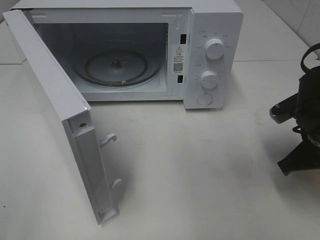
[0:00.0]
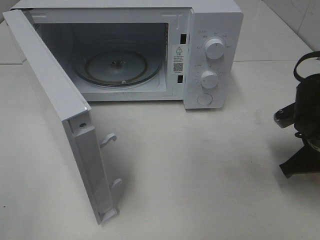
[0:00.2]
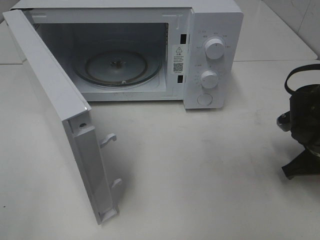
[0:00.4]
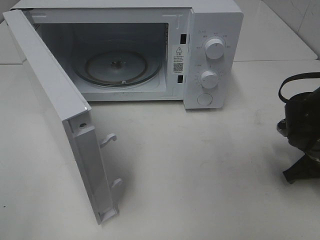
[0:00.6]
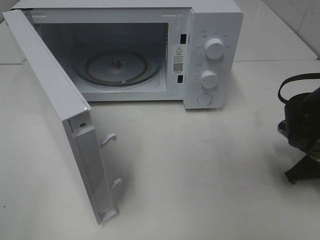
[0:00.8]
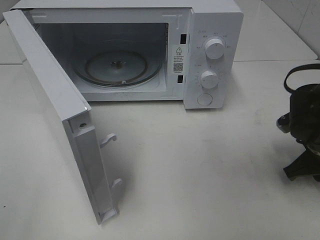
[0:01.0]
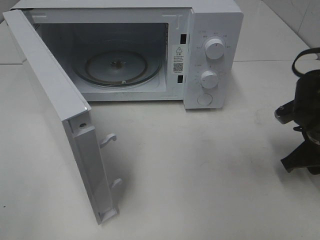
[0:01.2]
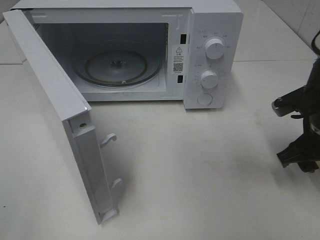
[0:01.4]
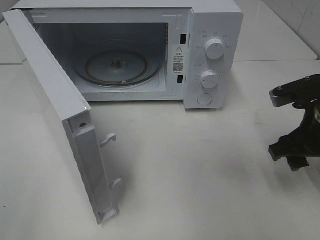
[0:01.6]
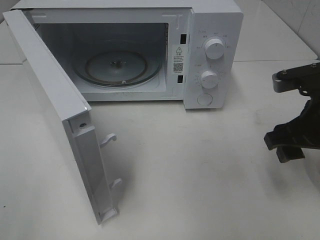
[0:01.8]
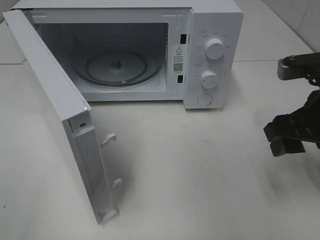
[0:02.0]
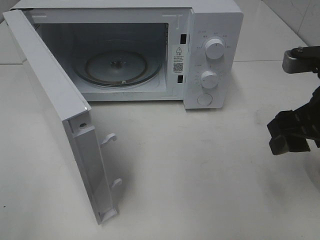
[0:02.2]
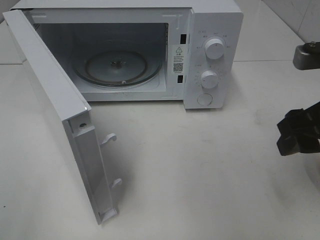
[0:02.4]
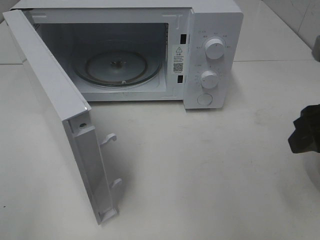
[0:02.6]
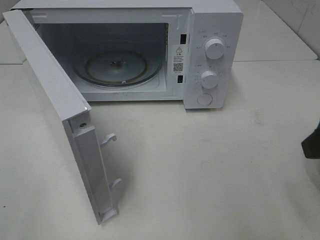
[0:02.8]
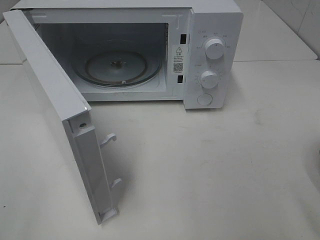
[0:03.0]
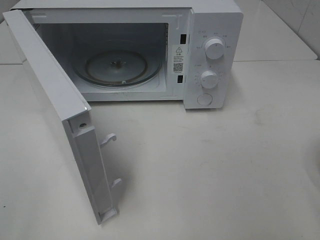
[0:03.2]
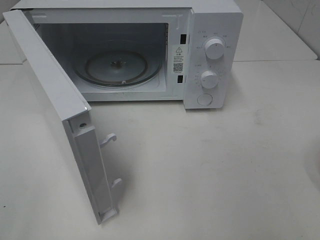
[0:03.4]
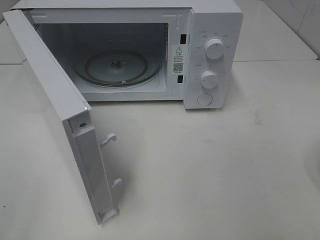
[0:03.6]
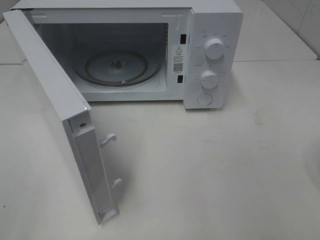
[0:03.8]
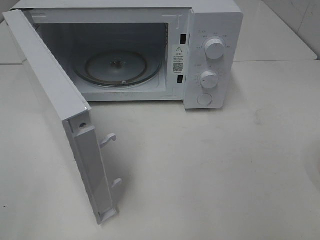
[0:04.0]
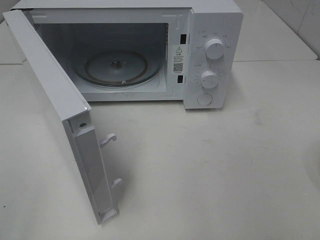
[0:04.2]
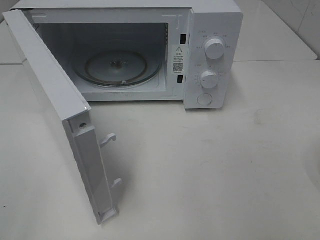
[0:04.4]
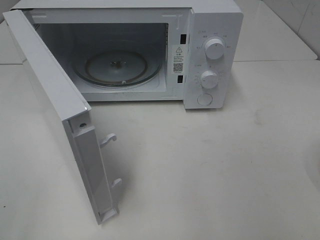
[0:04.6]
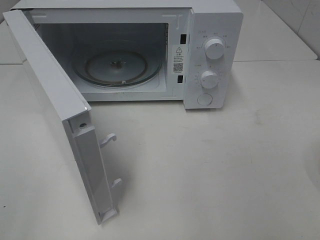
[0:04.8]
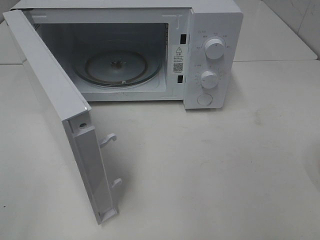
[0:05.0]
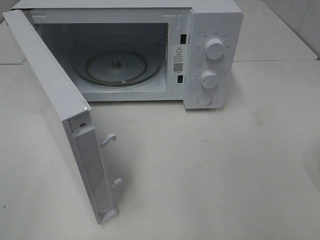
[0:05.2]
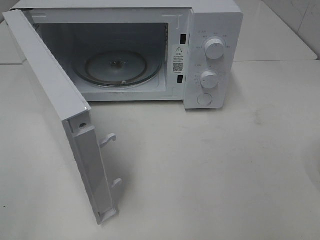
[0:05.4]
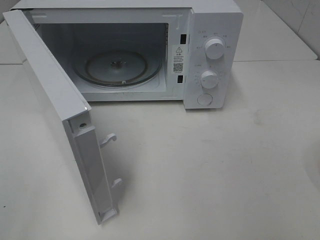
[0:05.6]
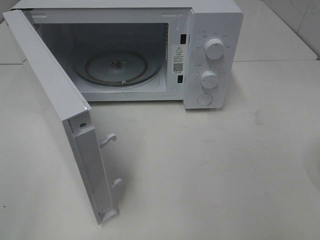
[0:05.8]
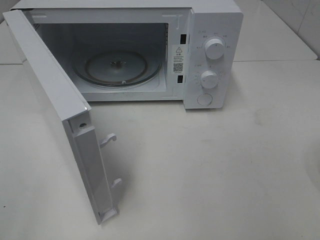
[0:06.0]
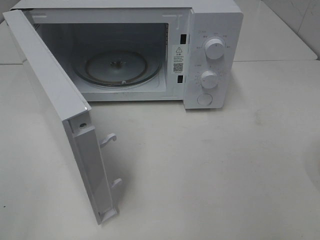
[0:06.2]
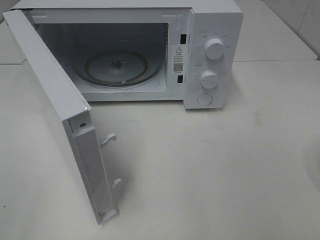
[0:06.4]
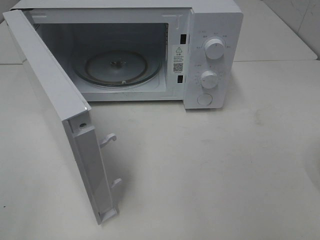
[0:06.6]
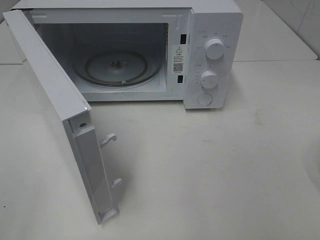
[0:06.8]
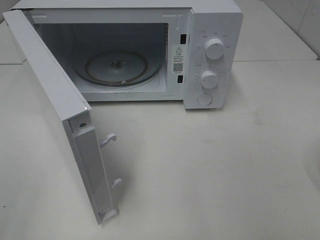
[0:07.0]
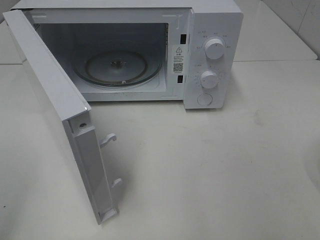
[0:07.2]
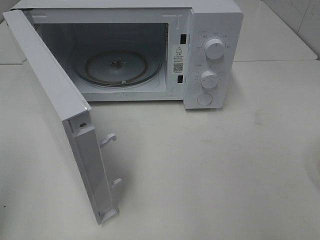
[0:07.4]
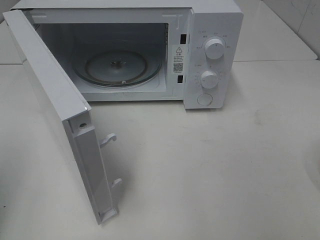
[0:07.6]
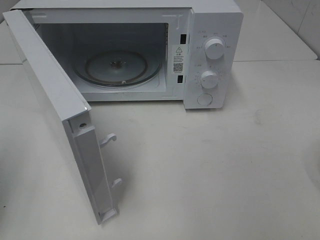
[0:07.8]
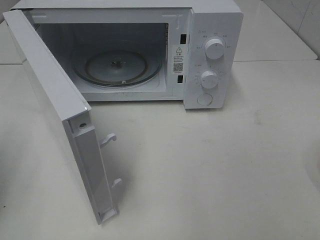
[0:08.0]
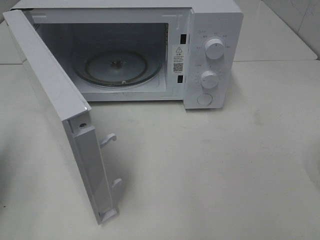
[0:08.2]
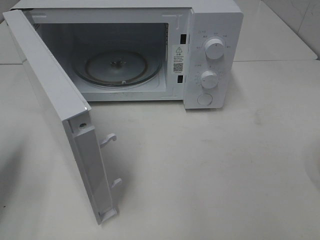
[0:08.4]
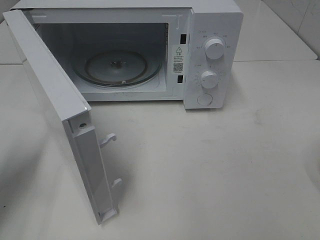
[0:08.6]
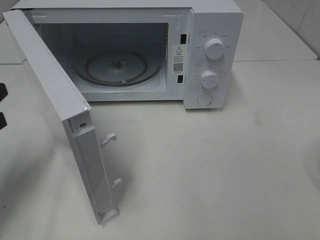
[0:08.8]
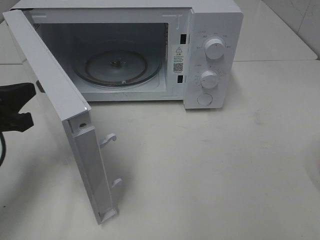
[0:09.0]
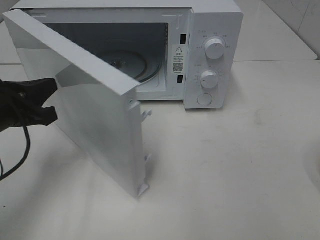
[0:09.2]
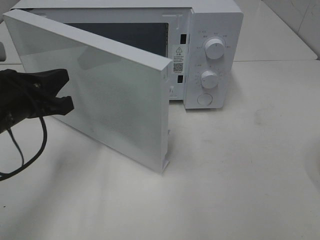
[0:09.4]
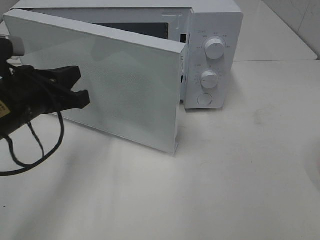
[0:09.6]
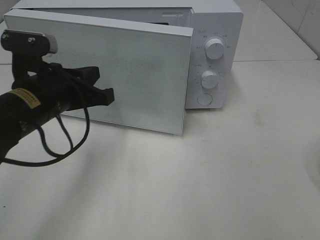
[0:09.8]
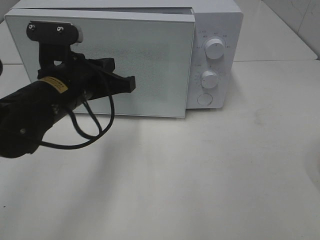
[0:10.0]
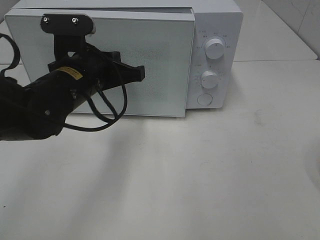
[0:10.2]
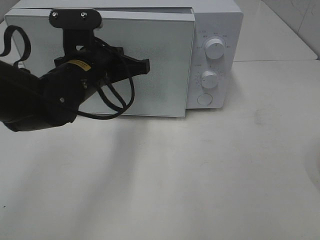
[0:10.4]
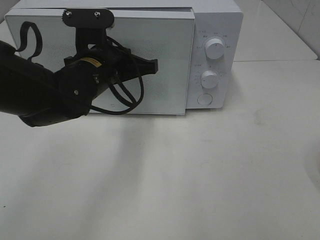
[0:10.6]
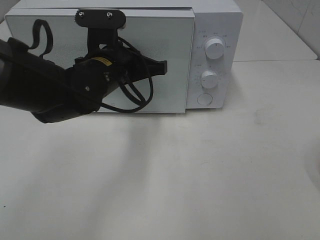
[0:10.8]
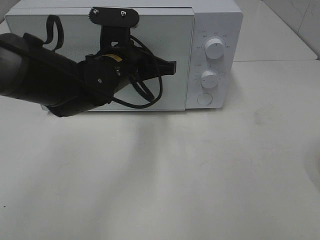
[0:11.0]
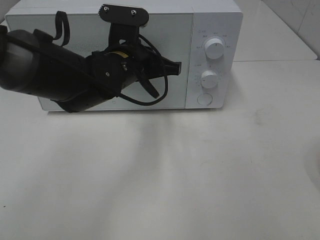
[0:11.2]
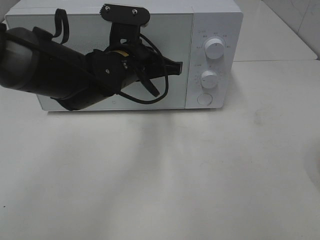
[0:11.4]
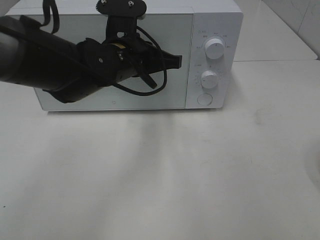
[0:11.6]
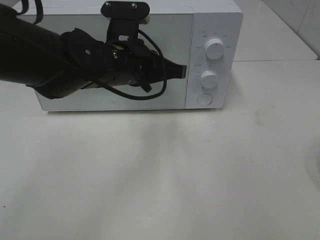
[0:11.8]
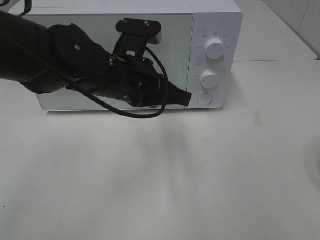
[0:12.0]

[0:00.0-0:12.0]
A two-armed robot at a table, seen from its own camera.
Task of the whole recording: Heat the burger.
0:00.0 to 0:01.6: The right gripper opens its fingers.
0:01.6 to 0:03.0: The right gripper heads backward and upward, covering about 15 cm.
0:07.6 to 0:09.0: The left gripper moves forward, downward and to the right, some 20 cm.
0:09.0 to 0:10.4: The left gripper shifts approximately 20 cm to the right and forward.
0:10.4 to 0:12.0: The left gripper changes place by some 5 cm.

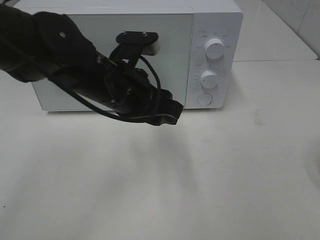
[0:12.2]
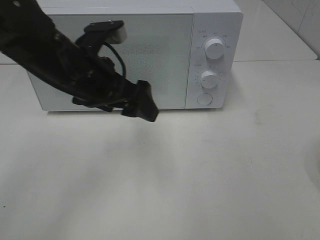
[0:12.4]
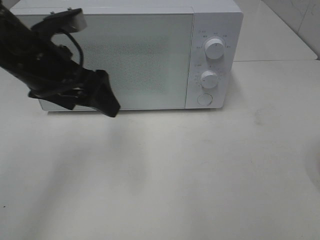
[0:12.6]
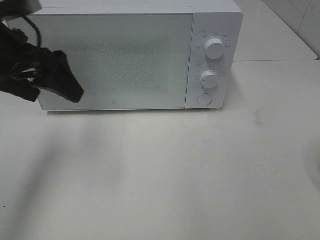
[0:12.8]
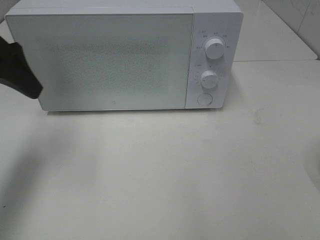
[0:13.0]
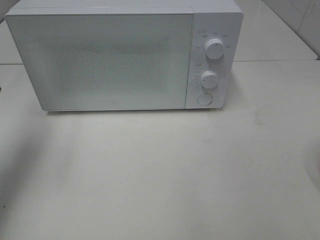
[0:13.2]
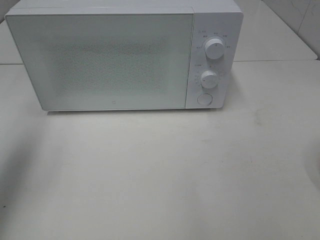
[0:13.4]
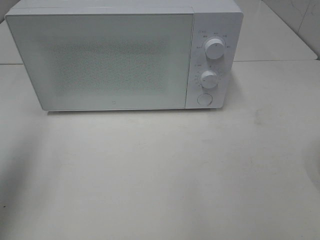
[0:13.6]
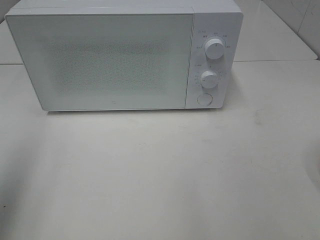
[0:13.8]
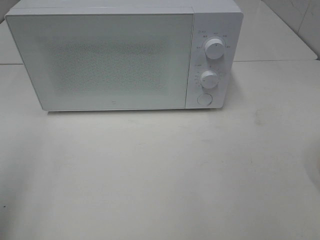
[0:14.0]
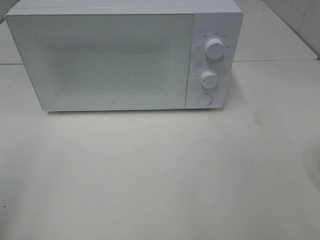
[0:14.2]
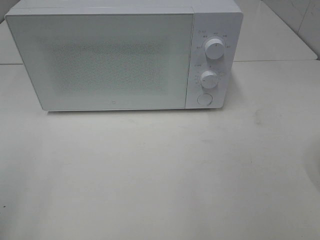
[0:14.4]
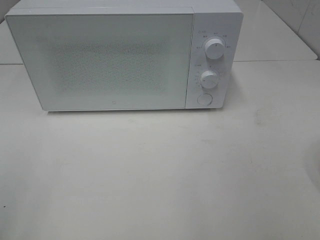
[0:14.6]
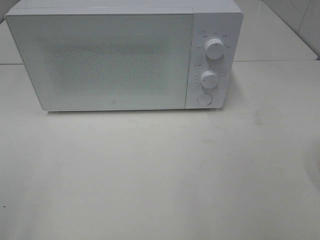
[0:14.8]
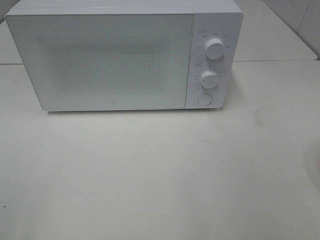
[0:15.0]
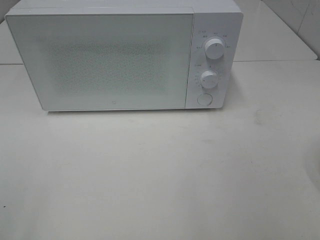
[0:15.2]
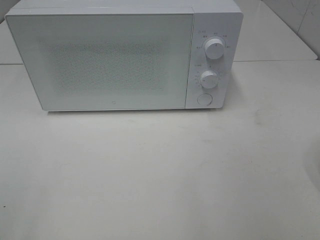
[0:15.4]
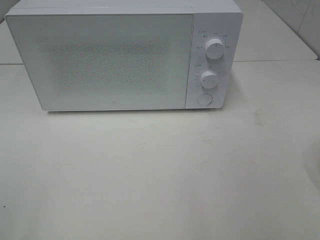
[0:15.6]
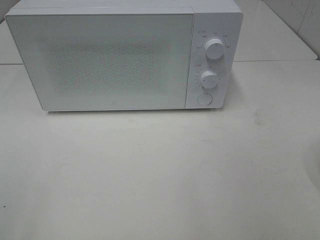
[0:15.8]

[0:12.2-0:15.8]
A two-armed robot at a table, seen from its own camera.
Task of the whole recording: Heat the burger.
0:12.2 to 0:14.0: The left gripper shifts roughly 35 cm to the left, backward and upward, and opens up.

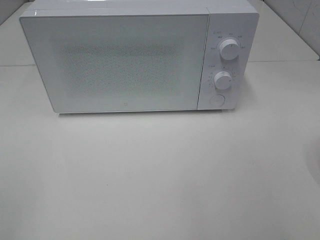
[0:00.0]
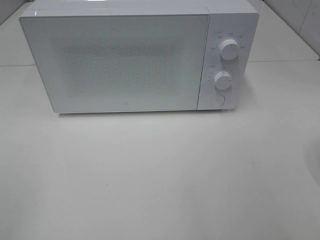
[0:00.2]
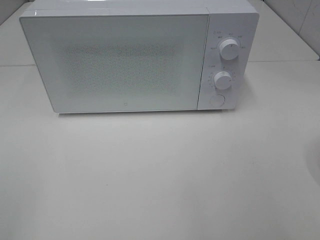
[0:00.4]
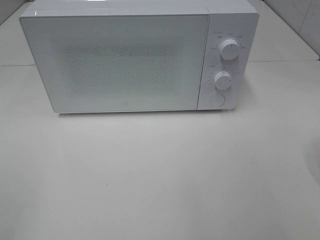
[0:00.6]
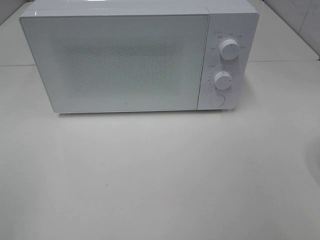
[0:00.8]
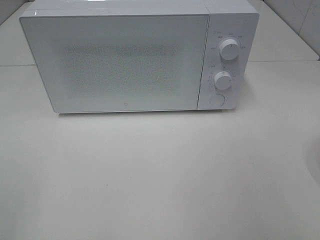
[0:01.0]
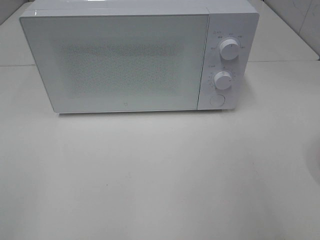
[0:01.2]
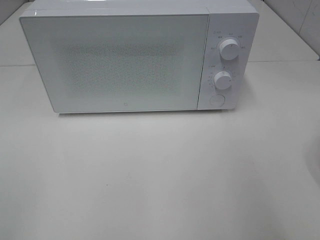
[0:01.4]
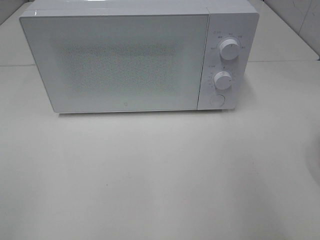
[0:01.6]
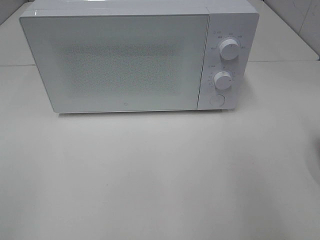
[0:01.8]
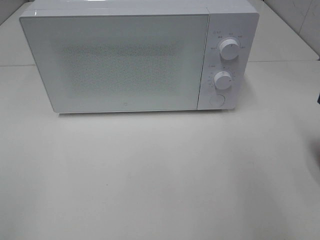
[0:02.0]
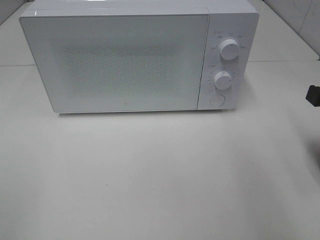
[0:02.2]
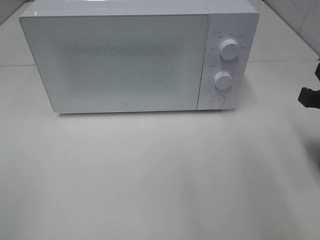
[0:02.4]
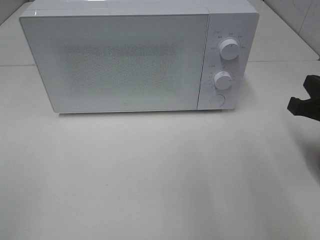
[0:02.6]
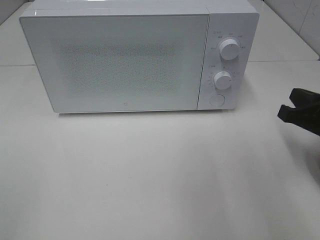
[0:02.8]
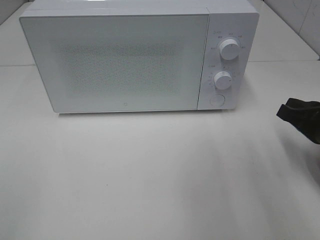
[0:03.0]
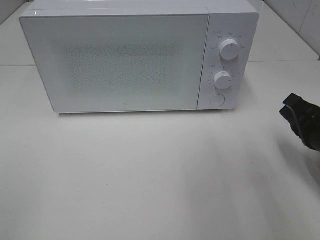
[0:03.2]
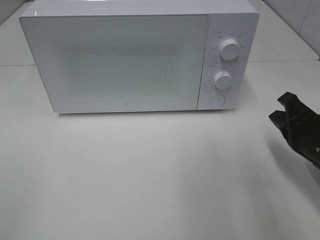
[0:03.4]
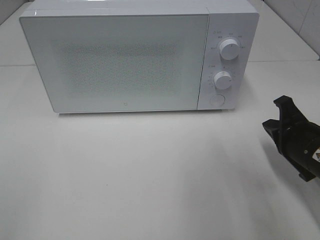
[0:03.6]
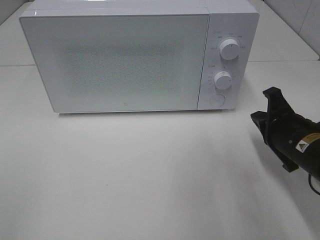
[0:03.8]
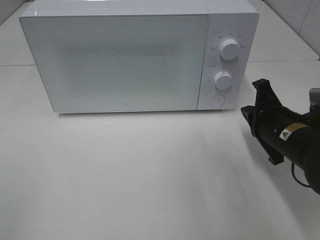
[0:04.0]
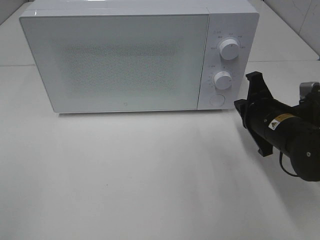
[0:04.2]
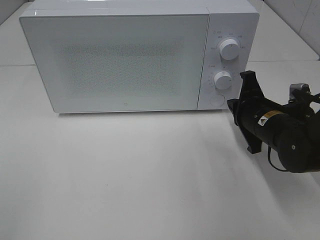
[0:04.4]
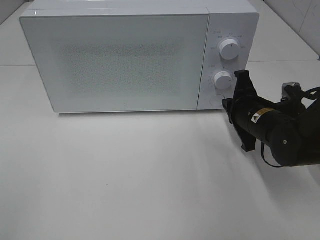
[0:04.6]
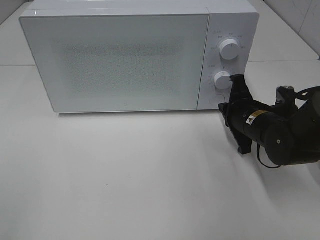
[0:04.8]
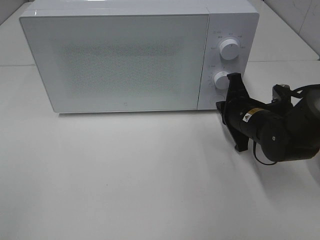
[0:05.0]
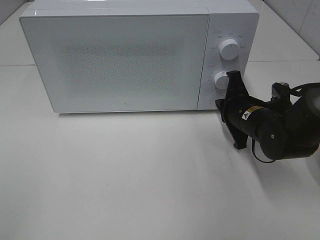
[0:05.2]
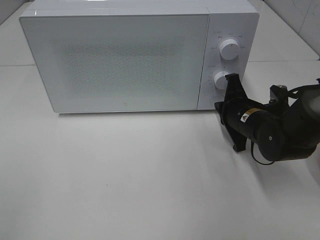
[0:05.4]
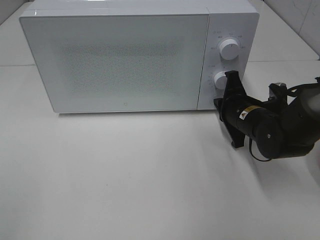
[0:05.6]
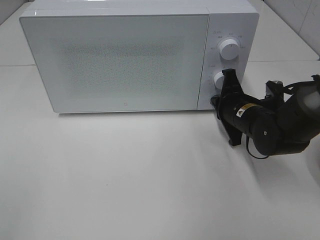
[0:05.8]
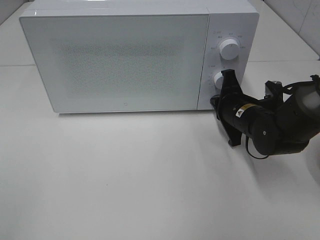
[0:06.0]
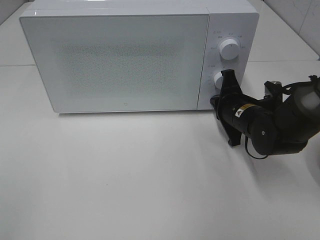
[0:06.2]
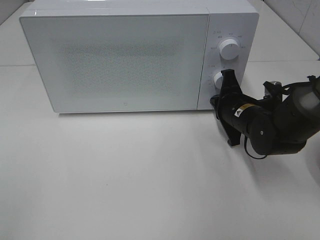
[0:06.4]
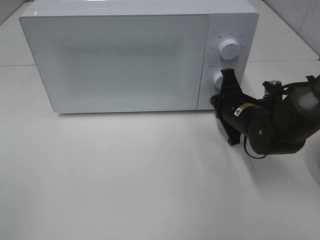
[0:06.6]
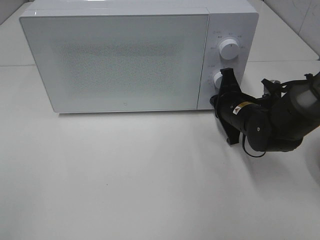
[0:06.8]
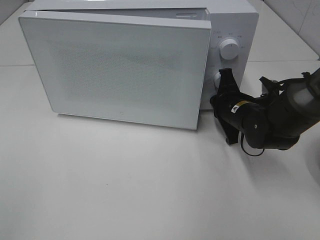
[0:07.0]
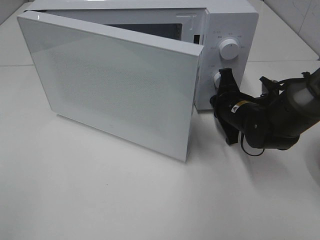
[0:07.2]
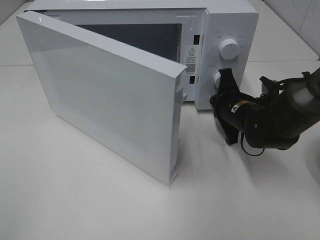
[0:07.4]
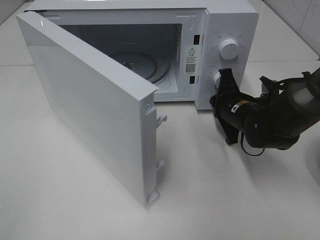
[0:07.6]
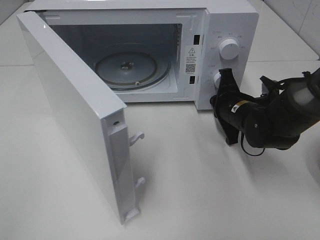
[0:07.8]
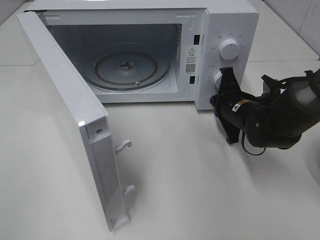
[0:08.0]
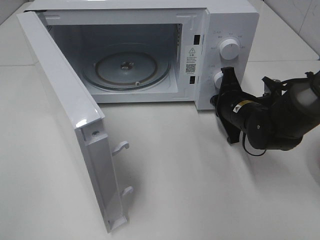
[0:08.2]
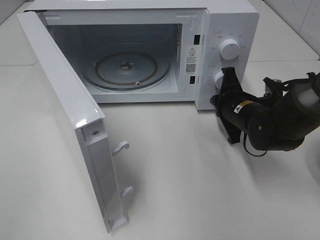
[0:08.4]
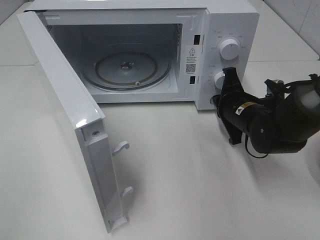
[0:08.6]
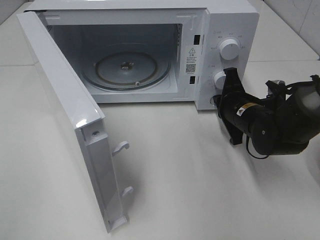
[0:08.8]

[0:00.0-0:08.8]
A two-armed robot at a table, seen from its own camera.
Task of the whole recording: Heat the burger.
0:01.4 to 0:03.0: The right gripper moves downward and forward, approximately 20 cm.
0:03.0 to 0:04.4: The right gripper goes about 10 cm to the left and forward.
0:04.4 to 0:05.8: The right gripper moves roughly 5 cm.
